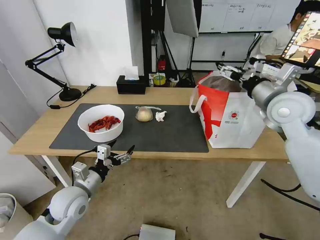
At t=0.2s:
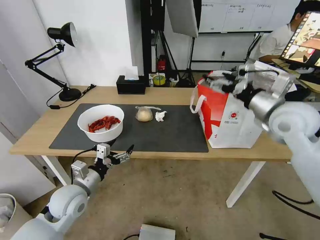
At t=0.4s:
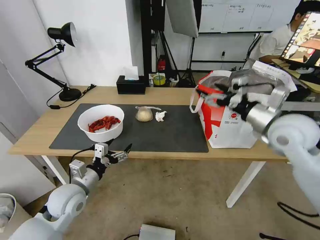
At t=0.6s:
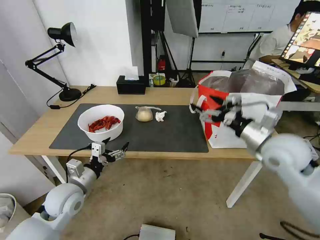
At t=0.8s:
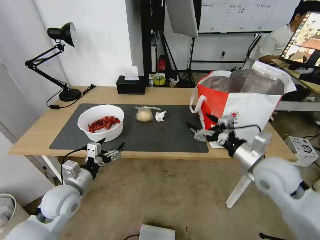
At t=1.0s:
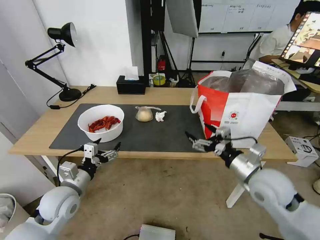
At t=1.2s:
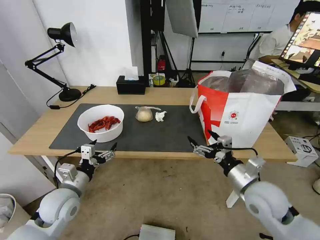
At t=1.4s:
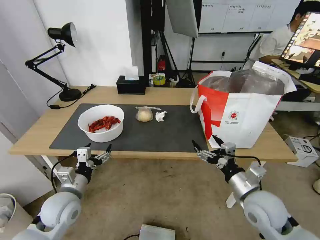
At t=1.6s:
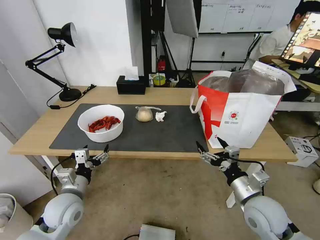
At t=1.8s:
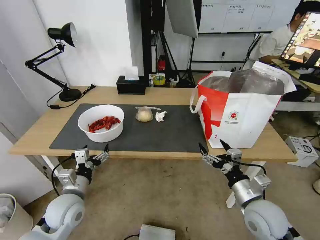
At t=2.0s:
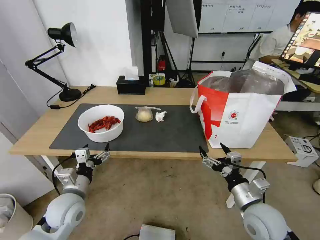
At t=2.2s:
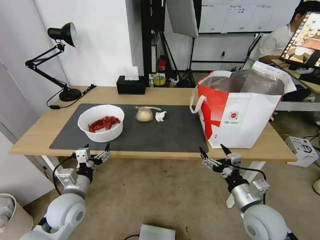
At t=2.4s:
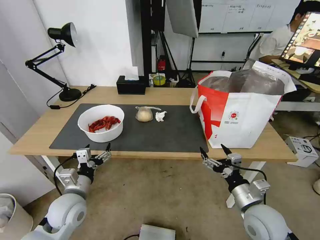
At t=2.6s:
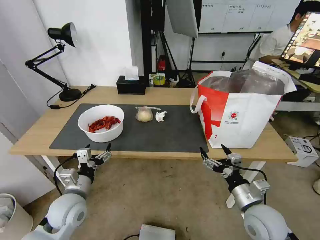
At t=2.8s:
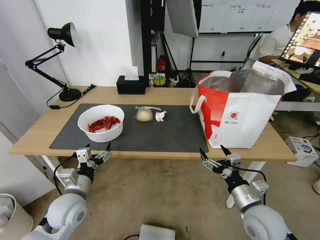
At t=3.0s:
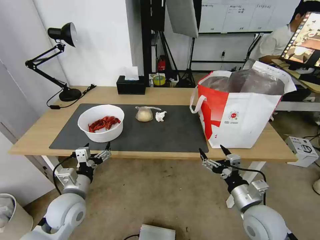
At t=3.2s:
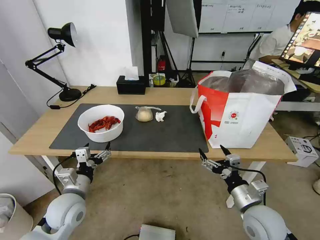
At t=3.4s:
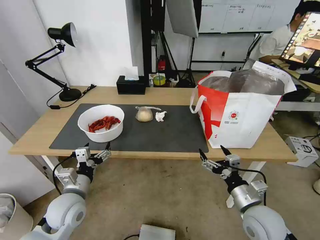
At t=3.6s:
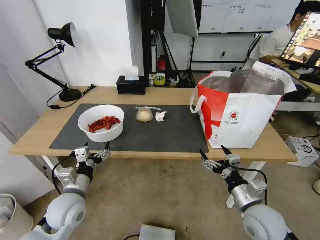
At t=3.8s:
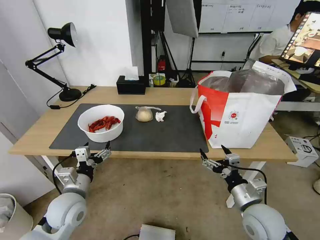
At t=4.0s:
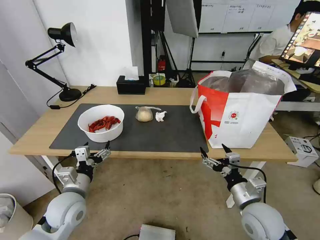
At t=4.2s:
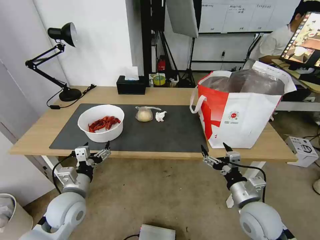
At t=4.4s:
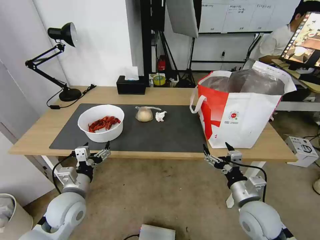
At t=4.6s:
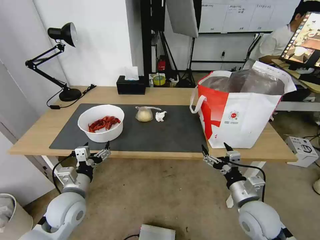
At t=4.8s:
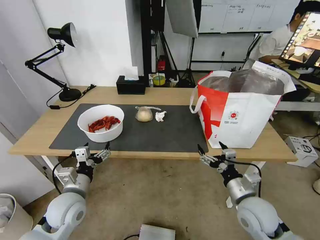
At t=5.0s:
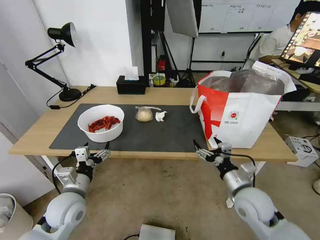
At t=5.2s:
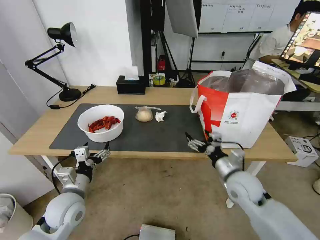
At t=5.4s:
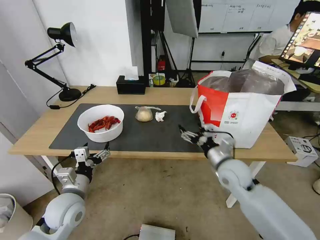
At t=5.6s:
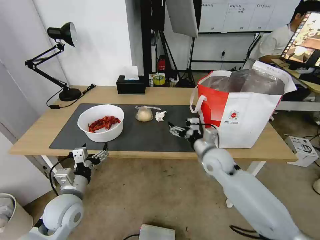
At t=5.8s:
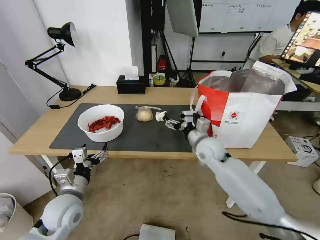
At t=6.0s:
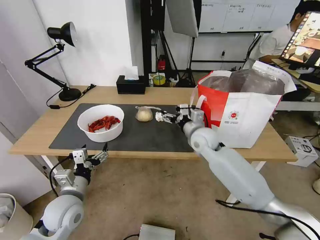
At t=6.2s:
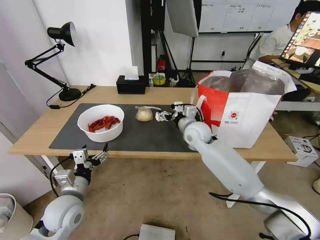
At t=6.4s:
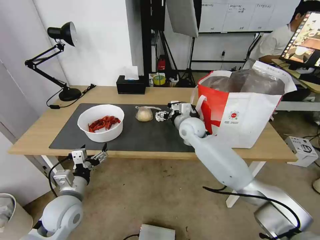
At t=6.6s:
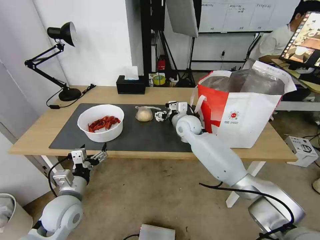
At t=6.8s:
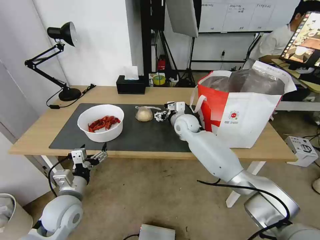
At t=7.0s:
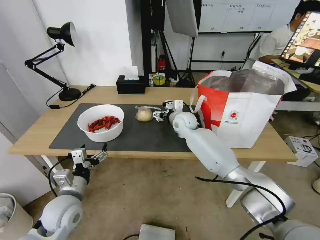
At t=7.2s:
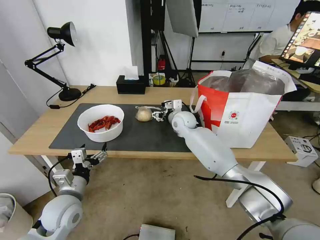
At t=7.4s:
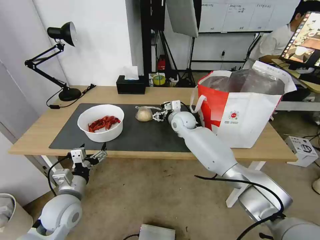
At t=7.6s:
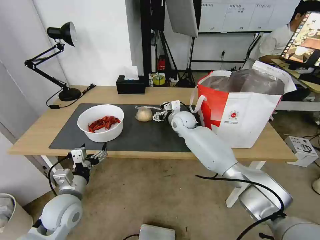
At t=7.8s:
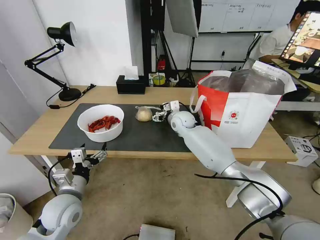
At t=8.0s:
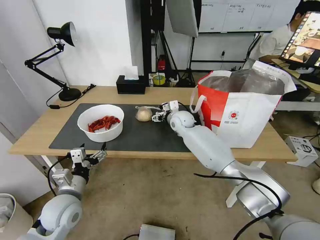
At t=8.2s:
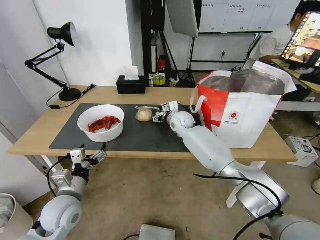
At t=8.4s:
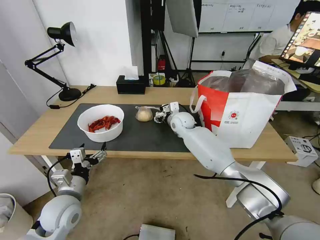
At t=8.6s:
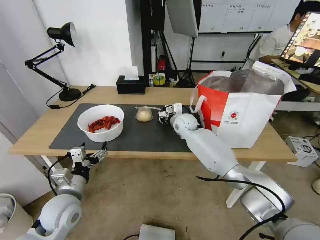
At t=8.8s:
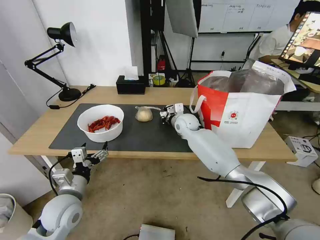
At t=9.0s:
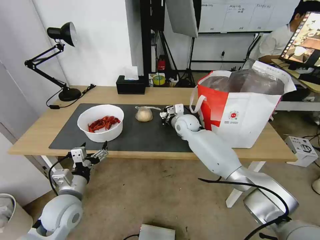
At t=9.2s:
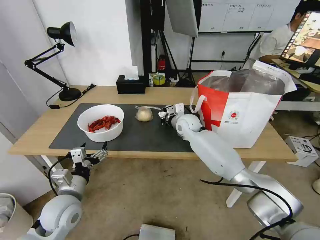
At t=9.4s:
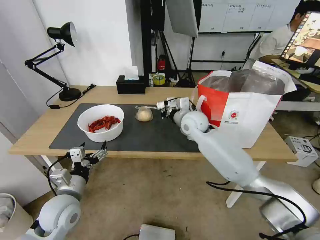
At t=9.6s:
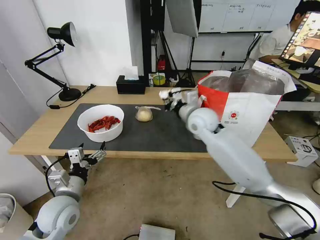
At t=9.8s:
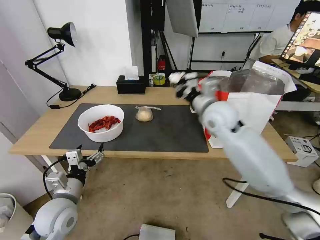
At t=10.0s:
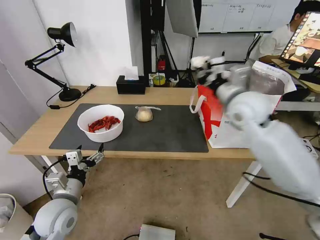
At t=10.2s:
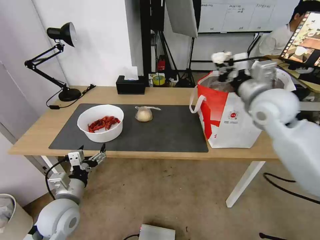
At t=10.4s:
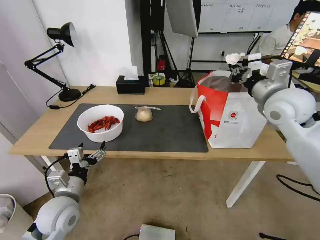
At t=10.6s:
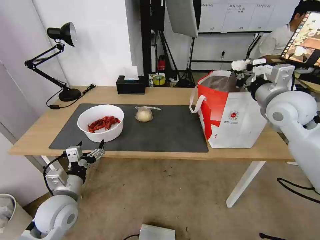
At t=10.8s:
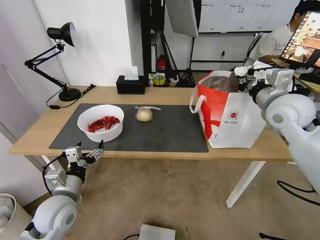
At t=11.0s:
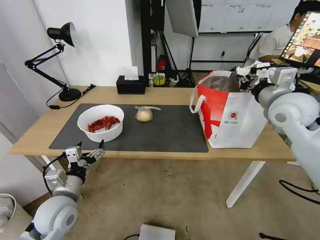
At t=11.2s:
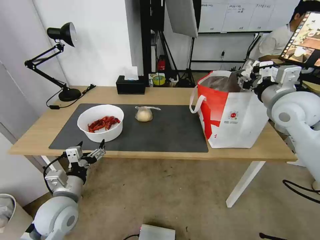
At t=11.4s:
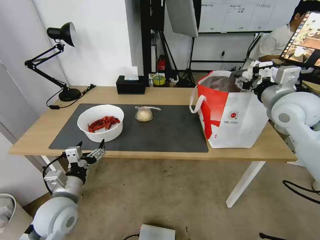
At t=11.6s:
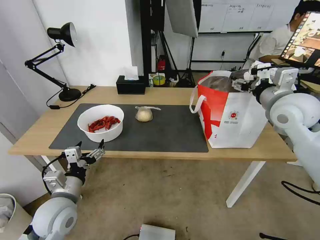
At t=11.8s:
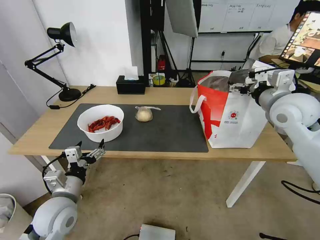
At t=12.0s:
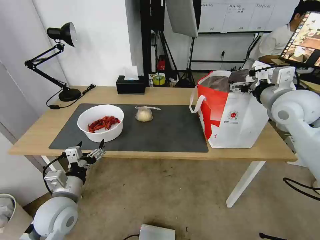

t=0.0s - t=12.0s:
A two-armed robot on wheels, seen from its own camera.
Task of the whole recording: Pick up the trash from the table and place it into the takeout bag.
t=0.0s - t=1.6s: The right gripper shifts approximately 25 cm downward and backward.
t=1.6s - t=4.4s: There are only small adjustments of the grippers.
t=4.4s - t=6.0s: The right gripper goes some 25 cm forward and to the left.
t=6.0s - t=7.6s: The right gripper moves forward and to the left, roughly 10 cm.
t=7.6s - t=9.0s: The right gripper closes its fingers.
t=9.0s - t=10.4s: The right gripper moves upward, to the right and backward, about 35 cm.
t=10.4s - t=12.0s: The right gripper opens its fingers.

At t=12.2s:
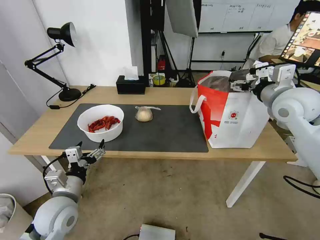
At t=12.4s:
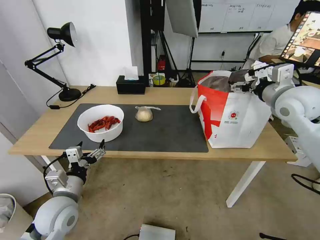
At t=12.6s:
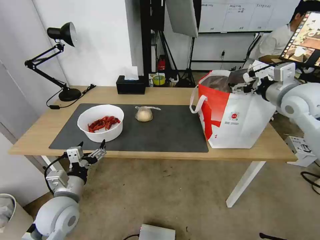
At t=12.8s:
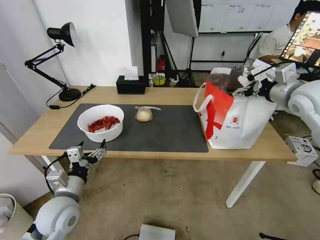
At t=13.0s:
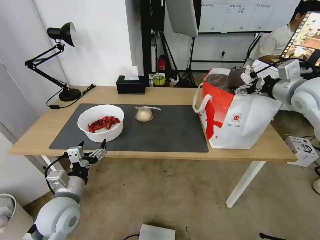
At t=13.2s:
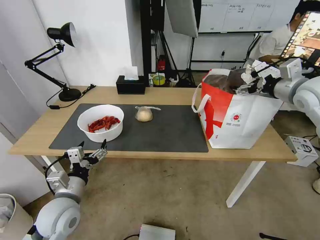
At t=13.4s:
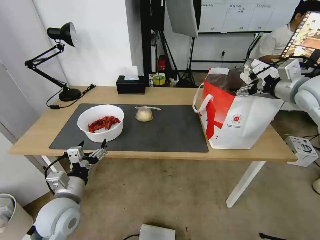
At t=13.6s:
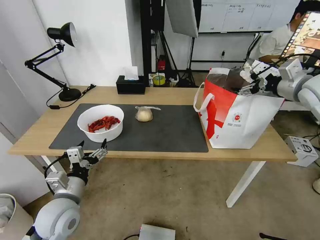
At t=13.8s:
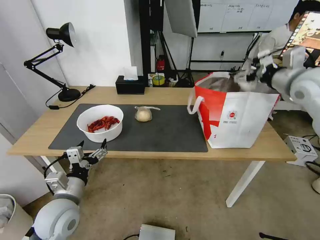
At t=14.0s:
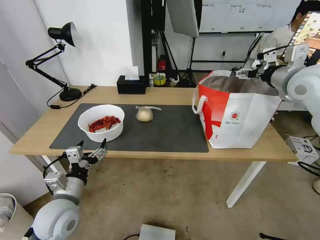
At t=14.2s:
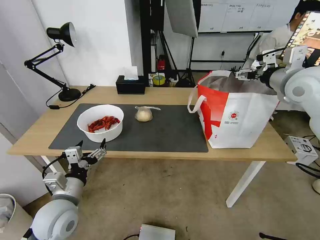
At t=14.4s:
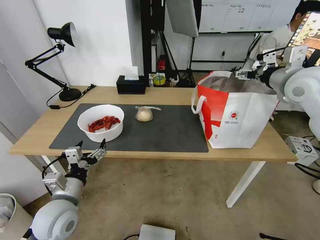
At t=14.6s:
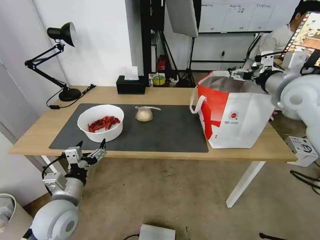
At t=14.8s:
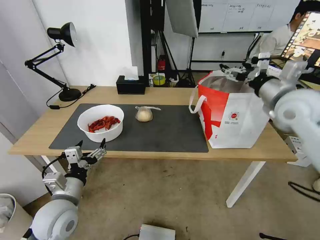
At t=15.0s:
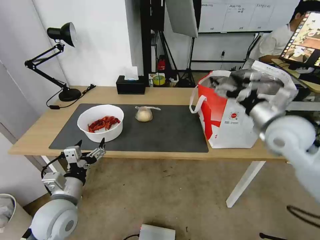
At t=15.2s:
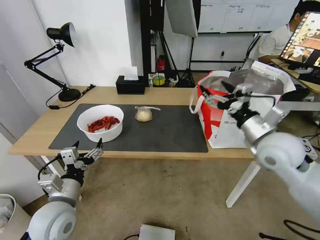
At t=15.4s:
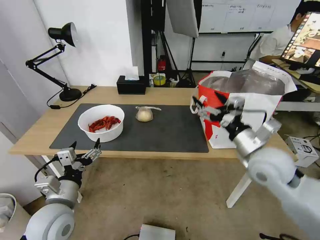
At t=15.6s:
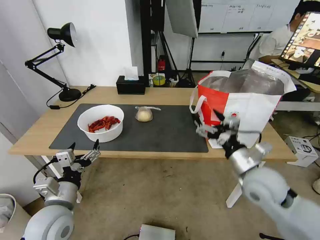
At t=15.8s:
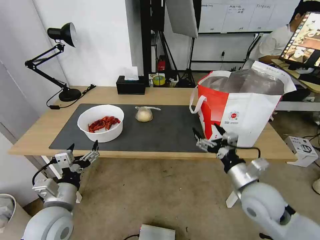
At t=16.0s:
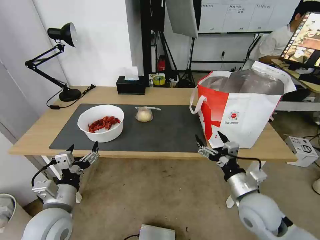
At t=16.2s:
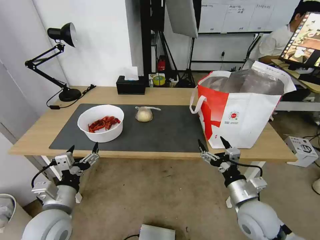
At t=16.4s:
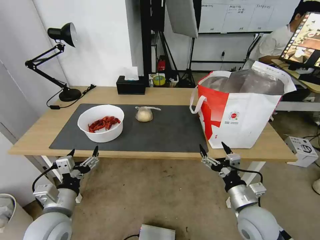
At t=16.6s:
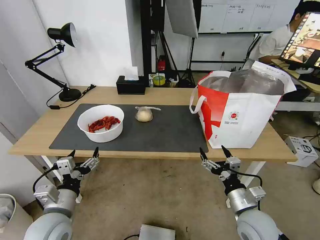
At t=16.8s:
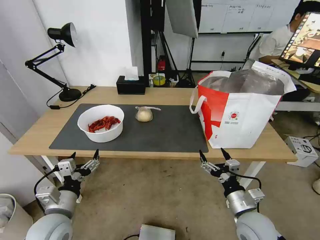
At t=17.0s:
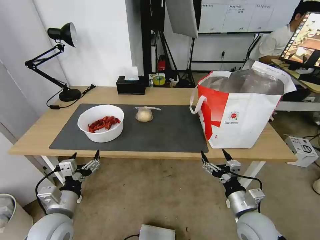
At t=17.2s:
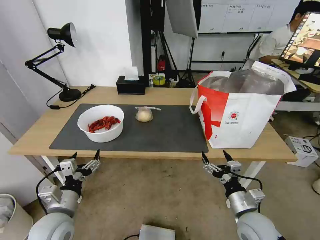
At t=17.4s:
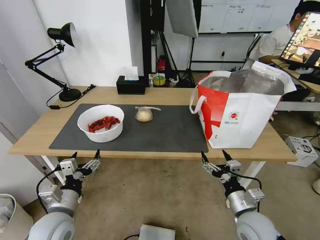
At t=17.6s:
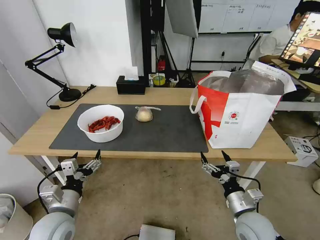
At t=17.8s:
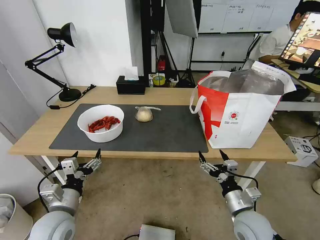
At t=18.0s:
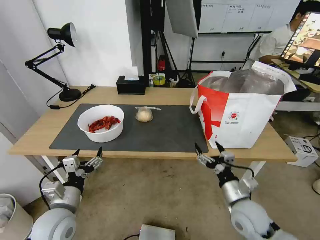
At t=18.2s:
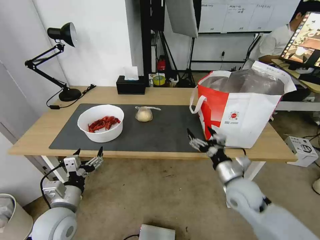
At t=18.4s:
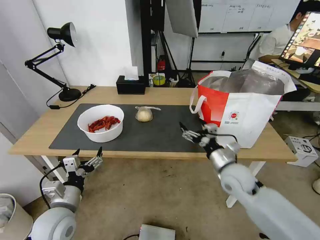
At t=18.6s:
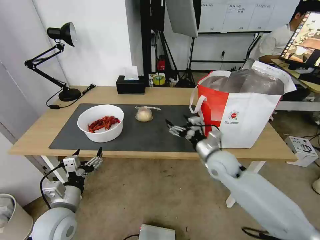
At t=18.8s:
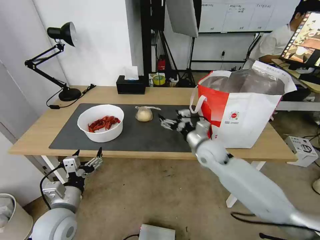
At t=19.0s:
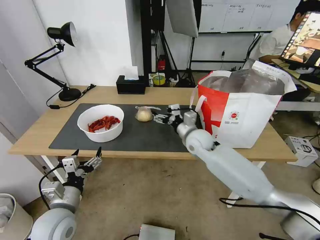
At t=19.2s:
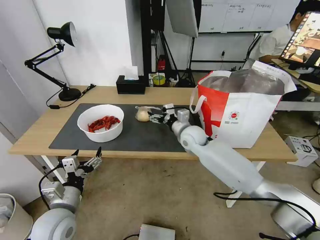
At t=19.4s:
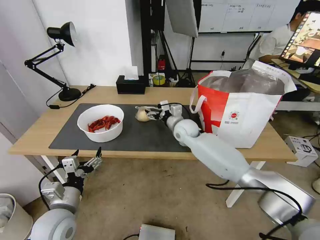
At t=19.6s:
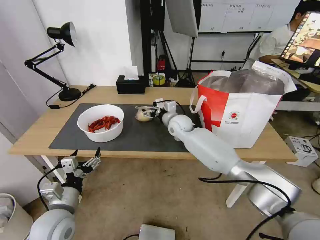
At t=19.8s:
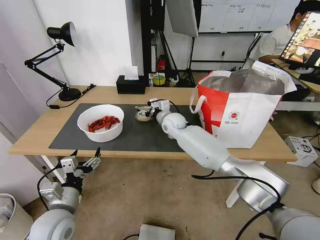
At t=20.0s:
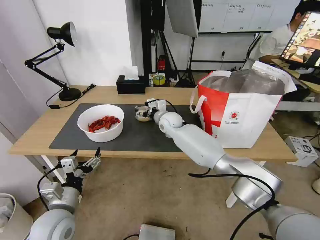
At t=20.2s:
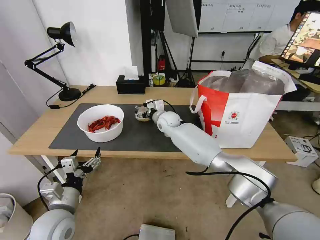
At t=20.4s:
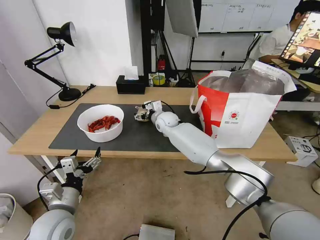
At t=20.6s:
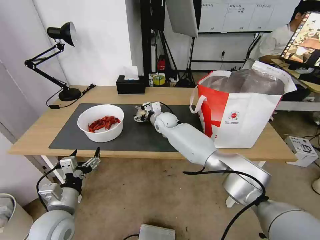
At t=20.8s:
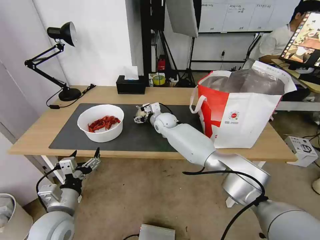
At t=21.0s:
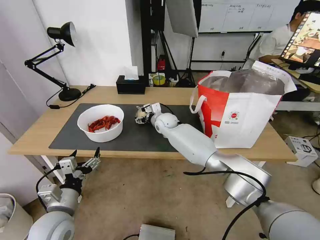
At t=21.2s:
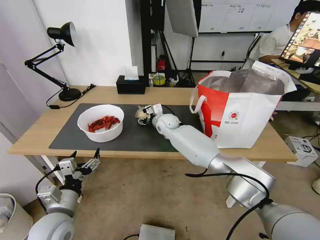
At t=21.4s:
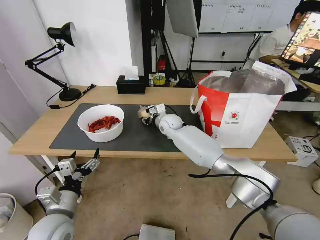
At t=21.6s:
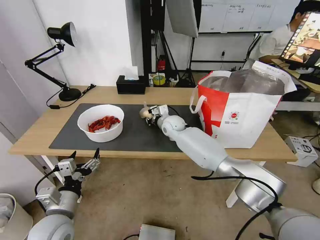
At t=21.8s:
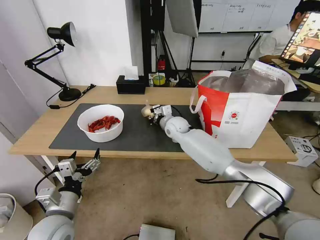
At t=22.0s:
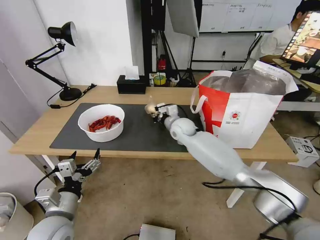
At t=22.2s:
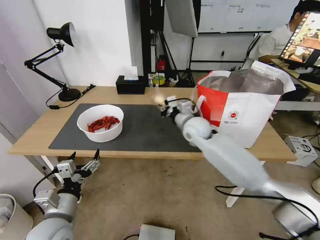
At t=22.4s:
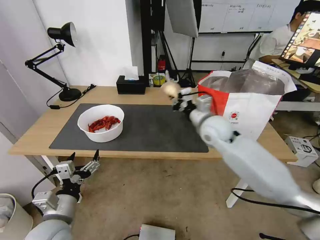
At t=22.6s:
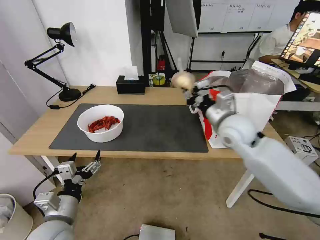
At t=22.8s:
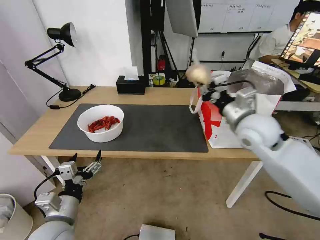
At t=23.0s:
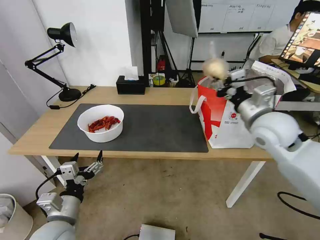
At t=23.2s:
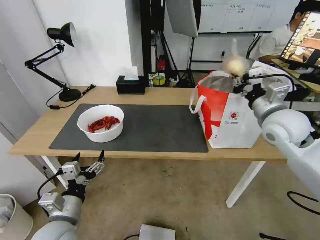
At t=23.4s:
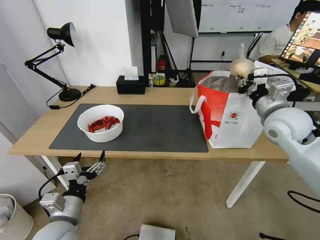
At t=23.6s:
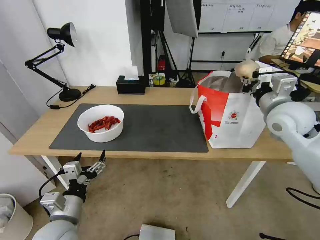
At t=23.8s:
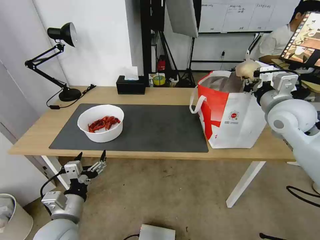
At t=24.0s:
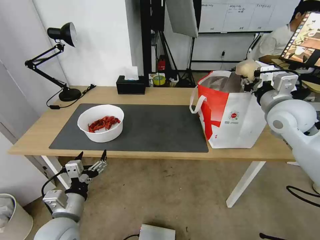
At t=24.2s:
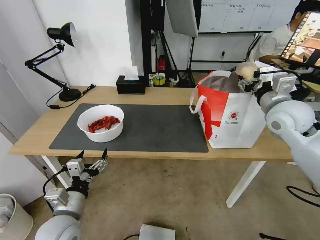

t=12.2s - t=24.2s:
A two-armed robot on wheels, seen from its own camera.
Task of the whole recording: Pick up the trash from the table and place it into the takeout bag.
t=12.2s - t=13.8s: The right gripper changes place by some 5 cm.
t=13.8s - t=15.2s: The right gripper travels downward, backward and to the left by approximately 20 cm.
t=15.2s - t=16.6s: The right gripper is displaced downward and backward by approximately 25 cm.
t=16.6s - t=18.2s: The right gripper heads forward, covering about 10 cm.
t=18.2s - t=19.8s: The right gripper moves forward and to the left, about 35 cm.
t=19.8s - t=21.2s: There are only small adjustments of the grippers.
t=21.2s - t=22.6s: The right gripper moves to the right, backward and upward, about 30 cm, and closes.
t=22.6s - t=24.2s: The right gripper is displaced to the right by approximately 10 cm, and opens.
